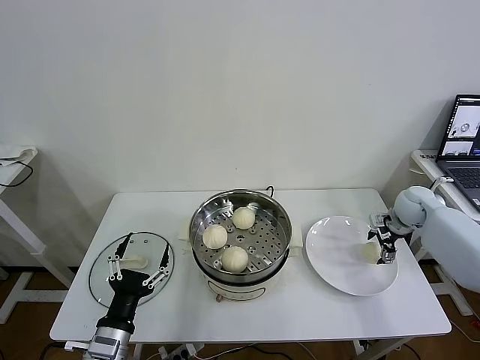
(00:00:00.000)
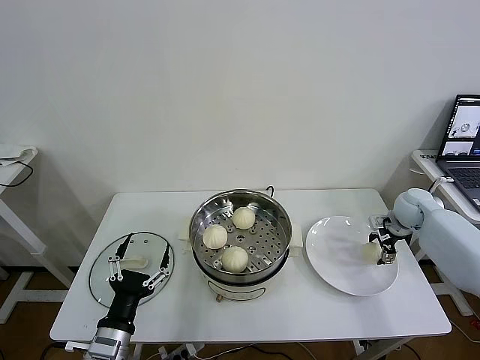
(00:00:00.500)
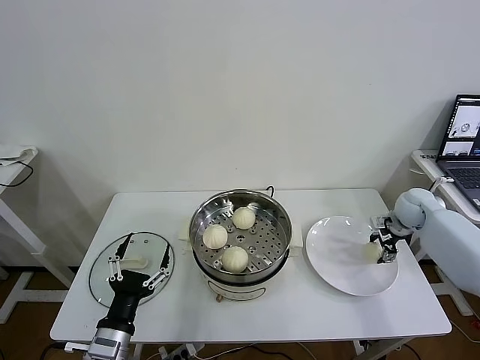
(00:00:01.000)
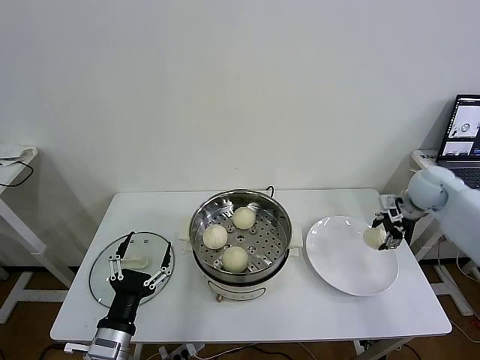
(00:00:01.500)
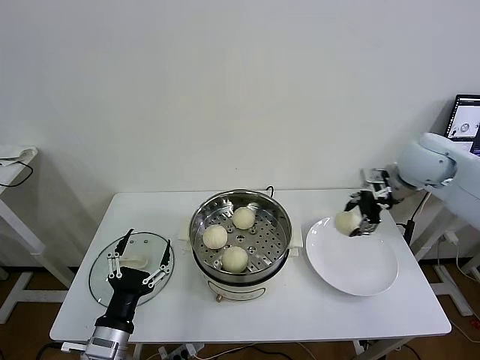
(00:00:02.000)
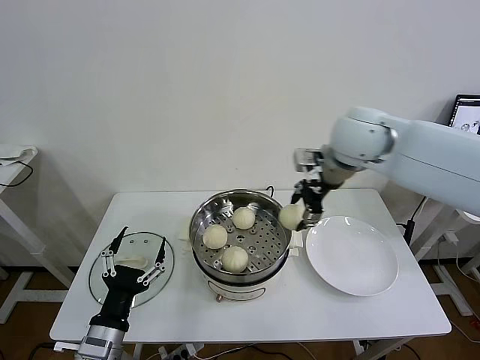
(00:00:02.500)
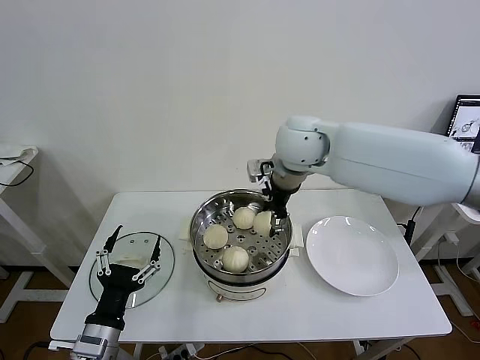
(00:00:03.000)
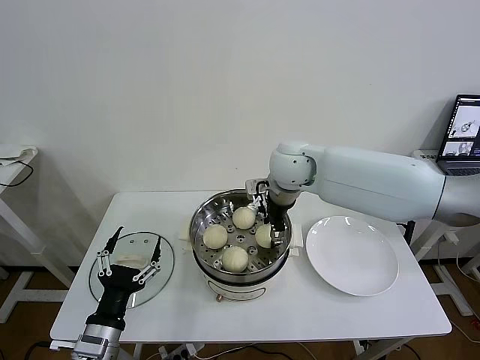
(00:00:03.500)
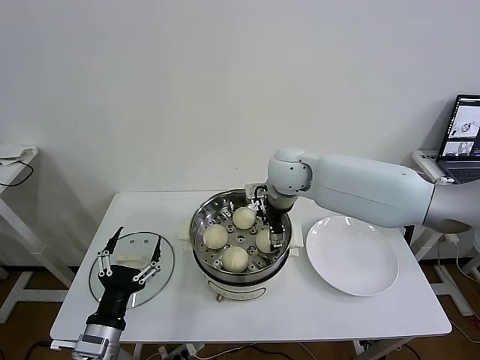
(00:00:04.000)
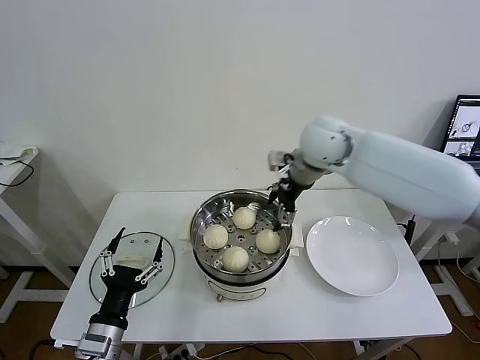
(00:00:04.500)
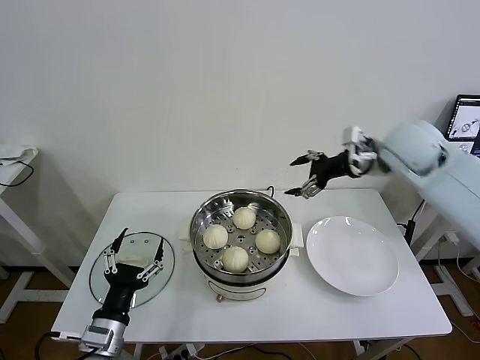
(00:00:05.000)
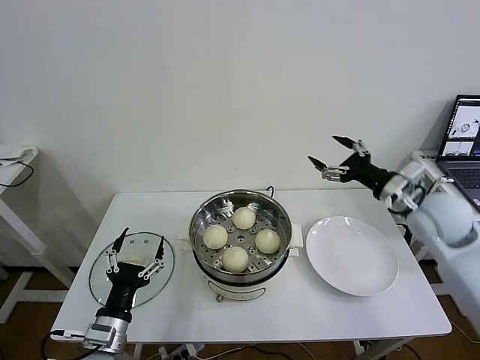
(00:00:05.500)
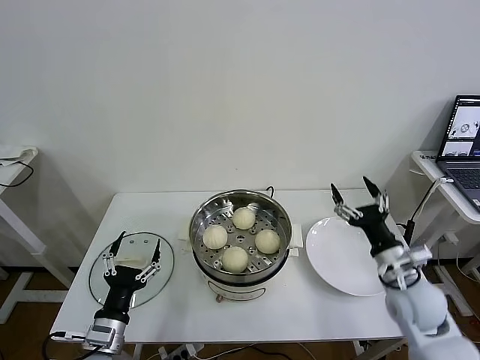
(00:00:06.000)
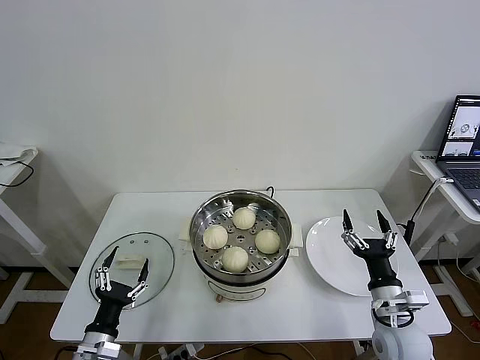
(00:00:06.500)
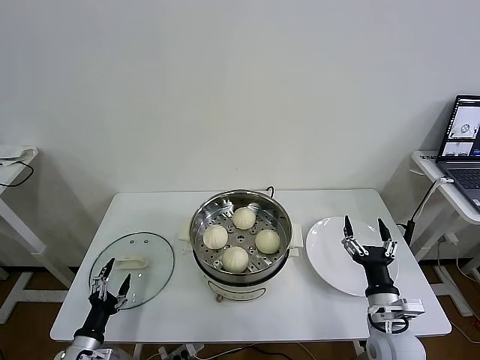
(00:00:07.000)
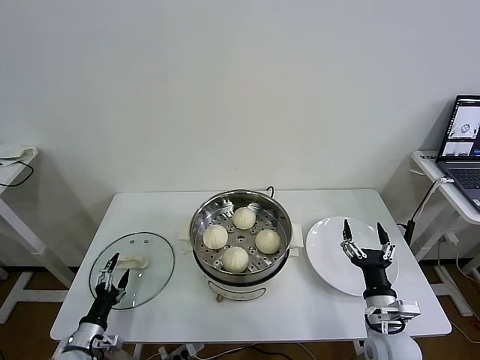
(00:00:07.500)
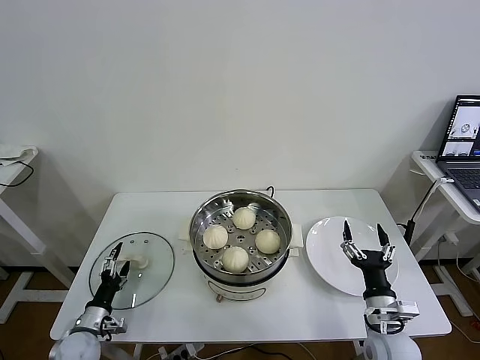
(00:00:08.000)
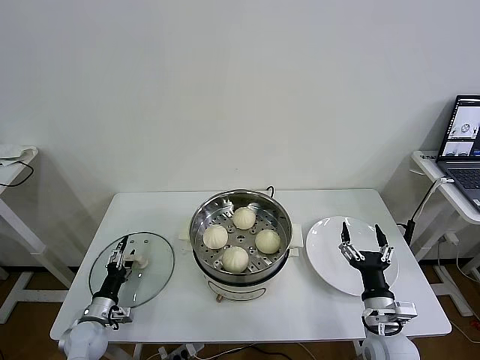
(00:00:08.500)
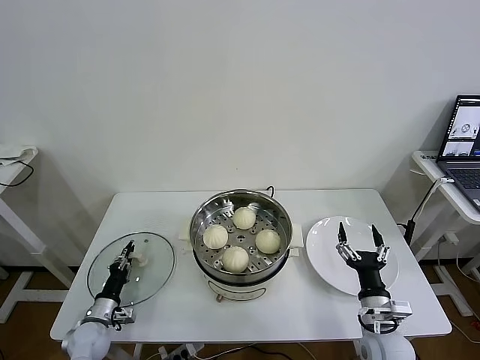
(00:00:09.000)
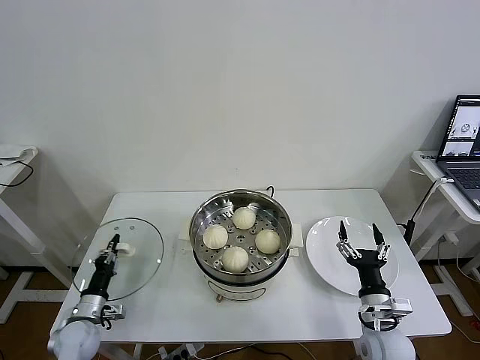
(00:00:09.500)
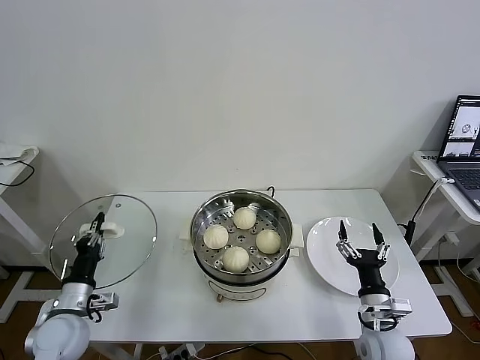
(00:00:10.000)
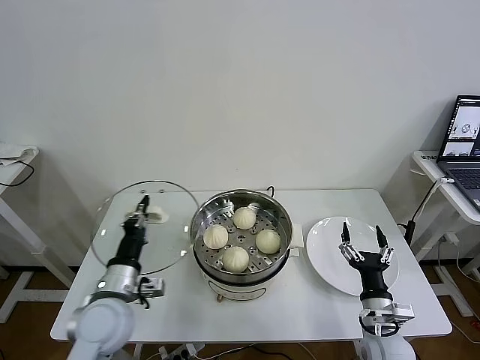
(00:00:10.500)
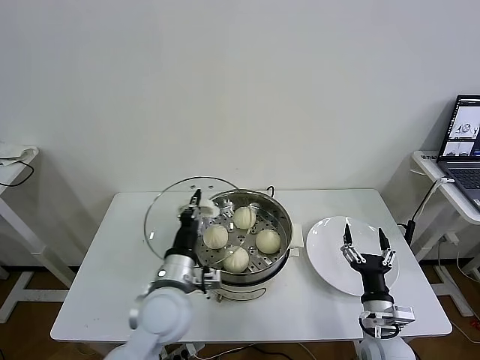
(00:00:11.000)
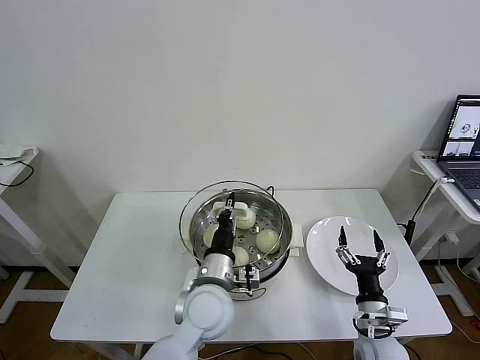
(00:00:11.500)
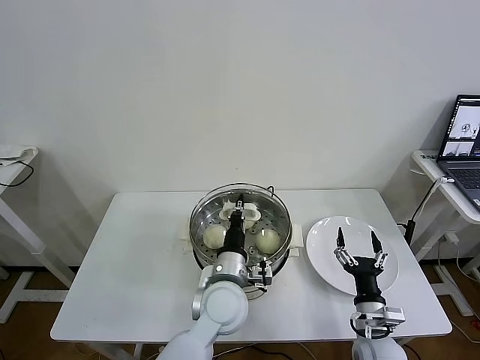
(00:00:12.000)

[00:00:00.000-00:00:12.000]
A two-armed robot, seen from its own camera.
Task of the whole recording: take steamed baozi put them in steamer then cover it.
Step, 00:00:01.000 to 00:00:04.000: Place the baozi on the steamer with right gripper.
Step, 00:00:04.500 to 00:00:09.000: Grasp the pot lid with left gripper.
00:00:00.000 to 00:00:02.000: The right gripper goes roughly 20 cm upward and to the left, and closes its fingers.
00:00:02.000 to 00:00:04.000: The right gripper shifts some 25 cm to the left, and opens its fingers.
00:00:04.000 to 00:00:06.000: The left gripper shifts by approximately 5 cm; the right gripper moves to the right, backward and downward, some 35 cm.
00:00:06.000 to 00:00:08.000: The right gripper is displaced downward and backward by about 10 cm. The left gripper is displaced downward, to the left and forward by approximately 20 cm.
00:00:08.000 to 00:00:10.000: The left gripper heads upward, covering some 15 cm, and closes up.
00:00:10.000 to 00:00:12.000: The left gripper travels to the right by approximately 35 cm.

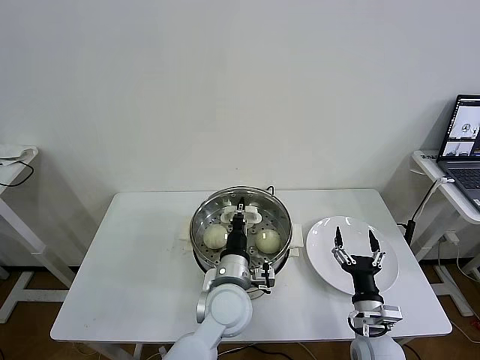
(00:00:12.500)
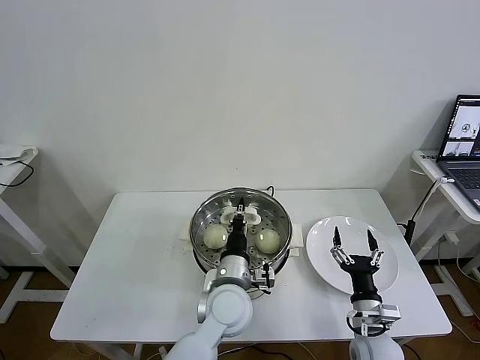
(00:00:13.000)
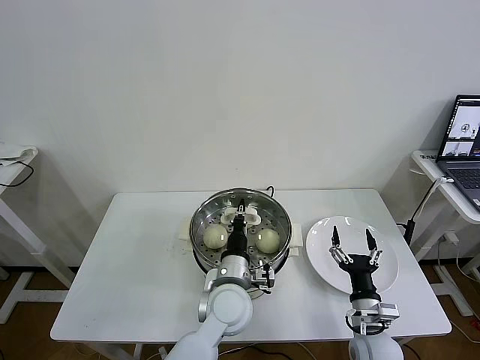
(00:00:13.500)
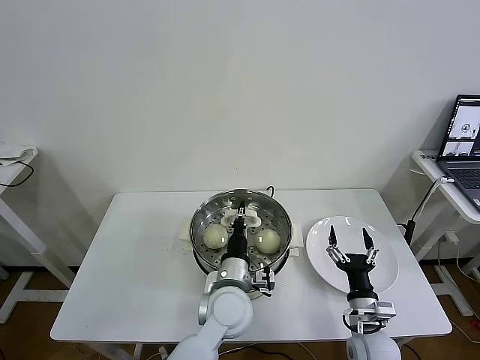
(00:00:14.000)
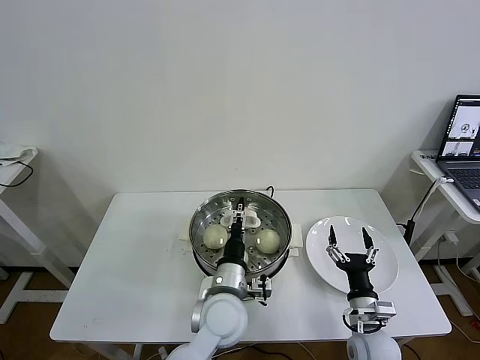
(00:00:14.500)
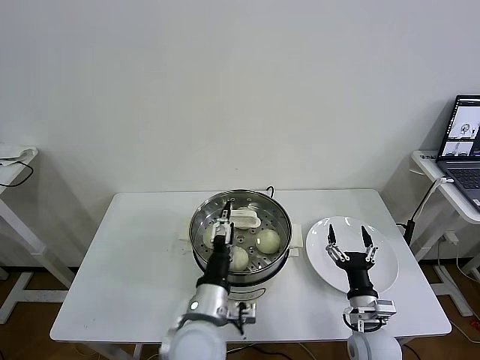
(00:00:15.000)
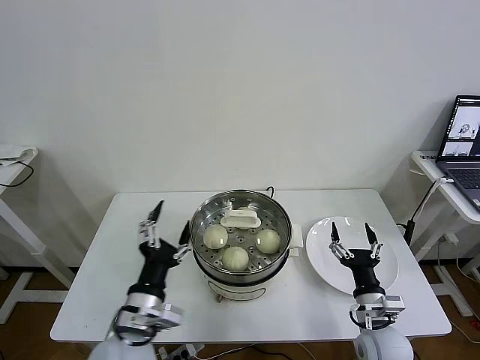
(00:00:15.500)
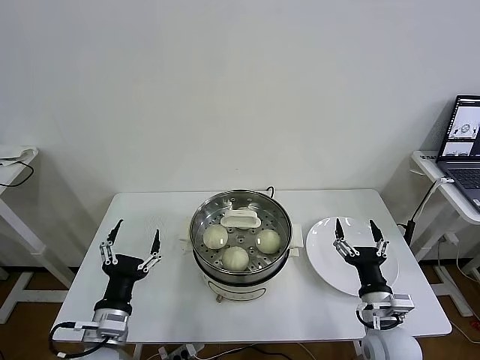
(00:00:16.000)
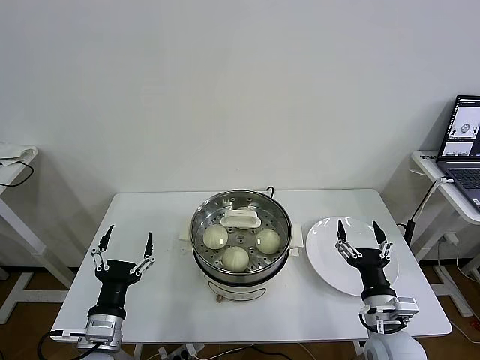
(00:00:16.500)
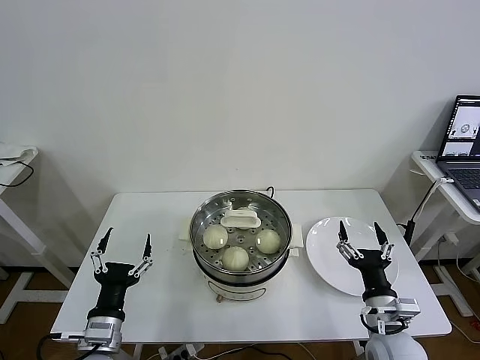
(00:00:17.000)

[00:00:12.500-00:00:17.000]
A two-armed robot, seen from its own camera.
Task of the whole recording: take steamed baozi put them in steamer then cover it.
Step, 00:00:12.500 to 00:00:14.500: Place the pot lid on the steamer with left gripper.
00:00:12.500 to 00:00:14.500: The left gripper opens up.
00:00:14.500 to 00:00:17.000: The right gripper shifts about 5 cm upward. The left gripper goes about 25 cm to the left and backward, and opens.
